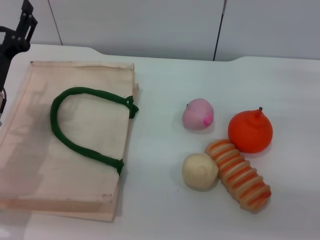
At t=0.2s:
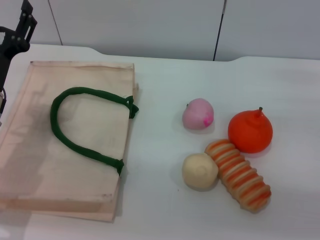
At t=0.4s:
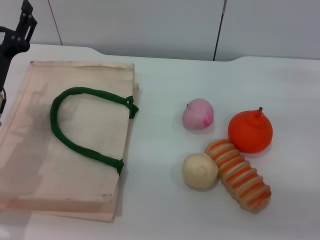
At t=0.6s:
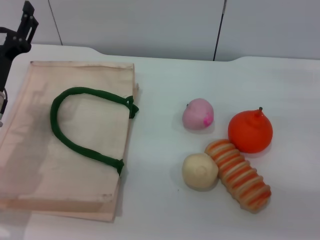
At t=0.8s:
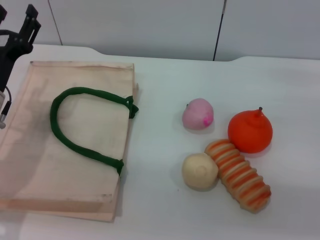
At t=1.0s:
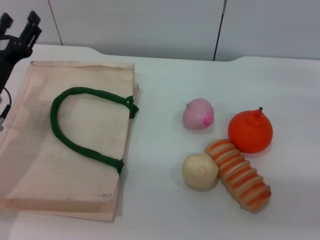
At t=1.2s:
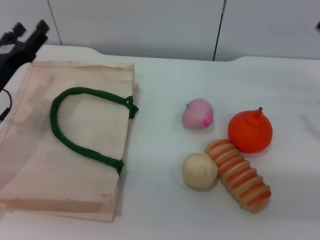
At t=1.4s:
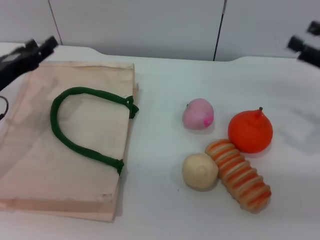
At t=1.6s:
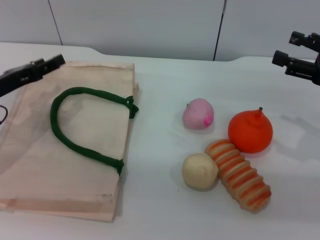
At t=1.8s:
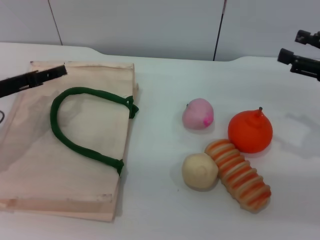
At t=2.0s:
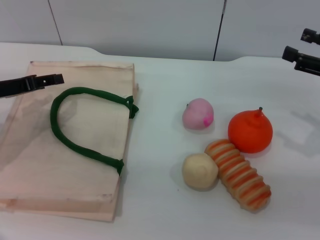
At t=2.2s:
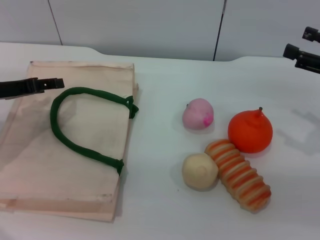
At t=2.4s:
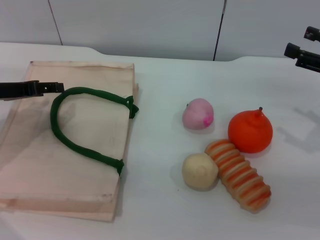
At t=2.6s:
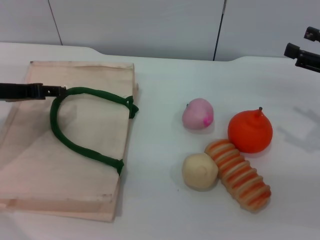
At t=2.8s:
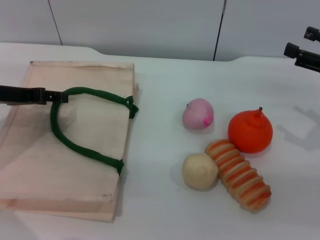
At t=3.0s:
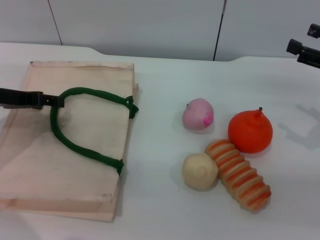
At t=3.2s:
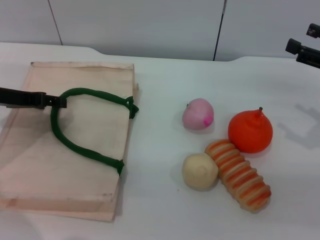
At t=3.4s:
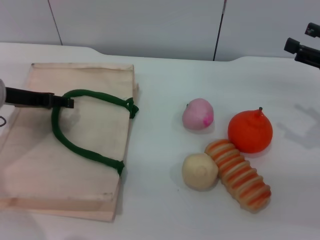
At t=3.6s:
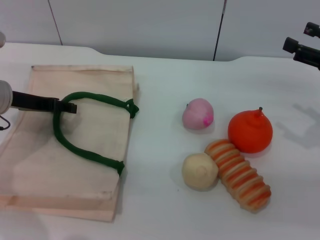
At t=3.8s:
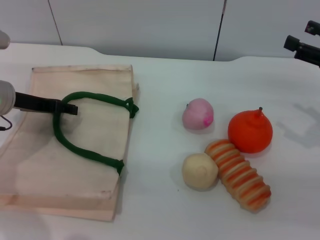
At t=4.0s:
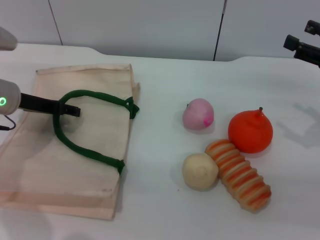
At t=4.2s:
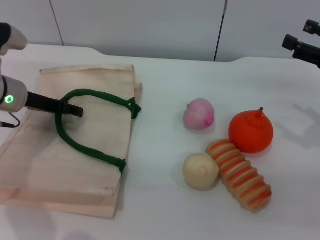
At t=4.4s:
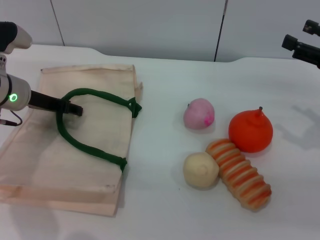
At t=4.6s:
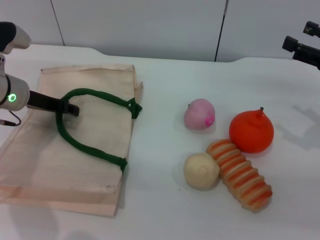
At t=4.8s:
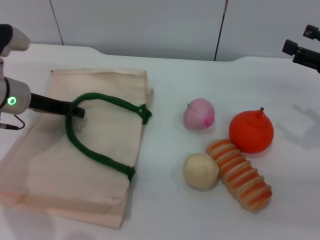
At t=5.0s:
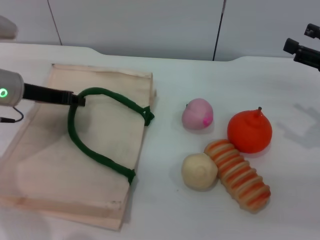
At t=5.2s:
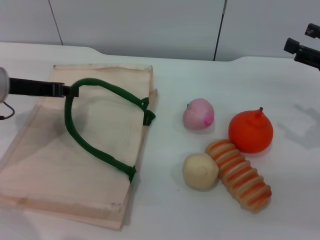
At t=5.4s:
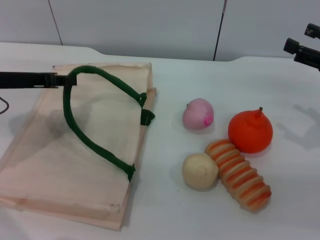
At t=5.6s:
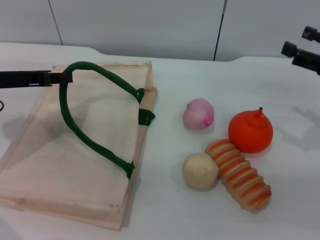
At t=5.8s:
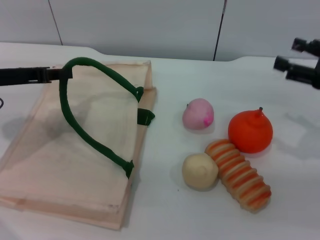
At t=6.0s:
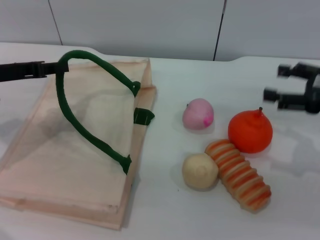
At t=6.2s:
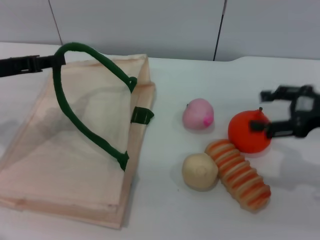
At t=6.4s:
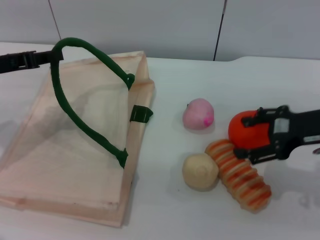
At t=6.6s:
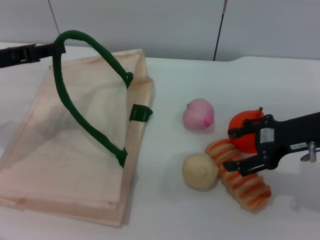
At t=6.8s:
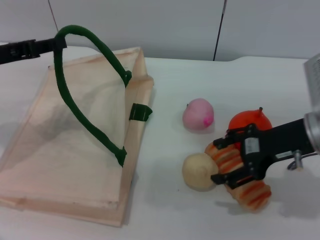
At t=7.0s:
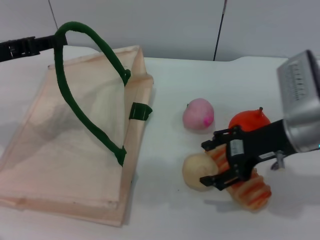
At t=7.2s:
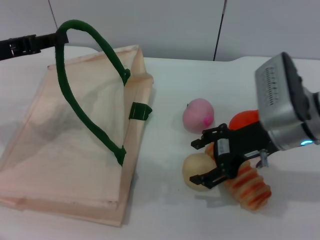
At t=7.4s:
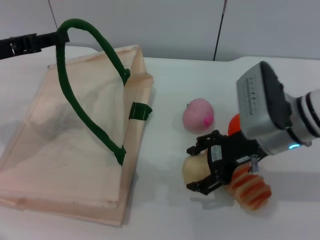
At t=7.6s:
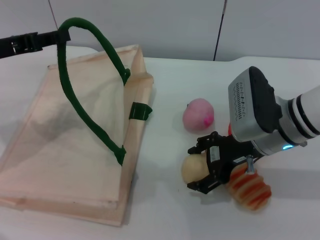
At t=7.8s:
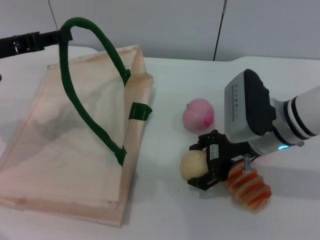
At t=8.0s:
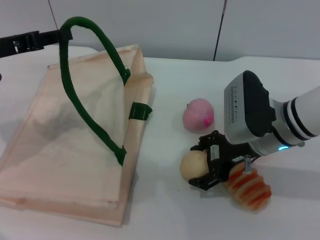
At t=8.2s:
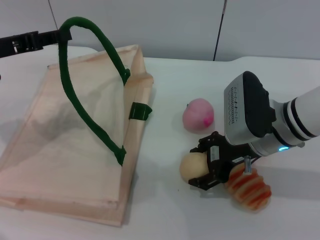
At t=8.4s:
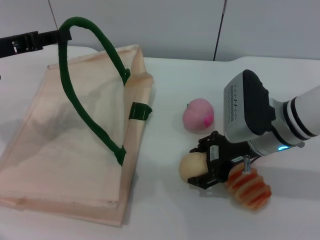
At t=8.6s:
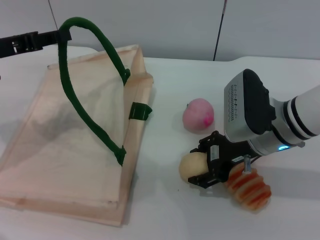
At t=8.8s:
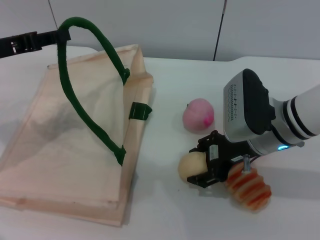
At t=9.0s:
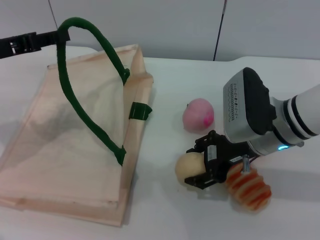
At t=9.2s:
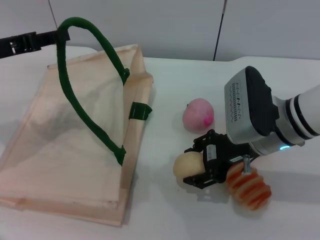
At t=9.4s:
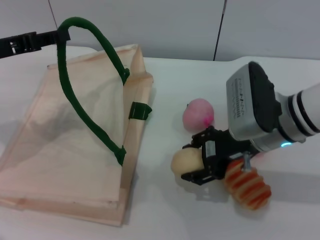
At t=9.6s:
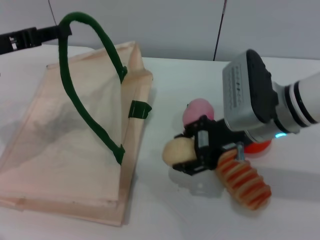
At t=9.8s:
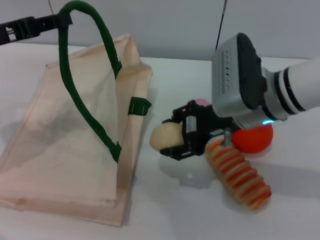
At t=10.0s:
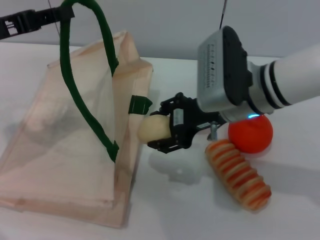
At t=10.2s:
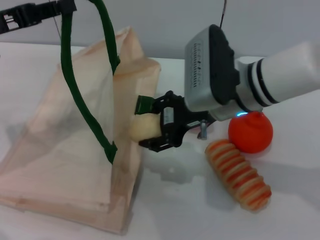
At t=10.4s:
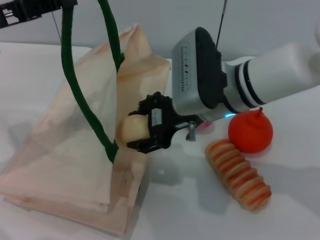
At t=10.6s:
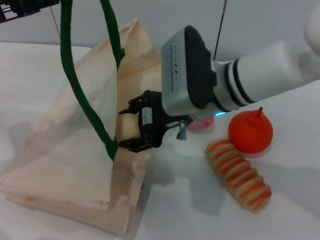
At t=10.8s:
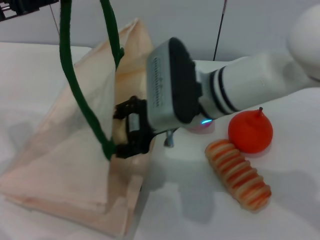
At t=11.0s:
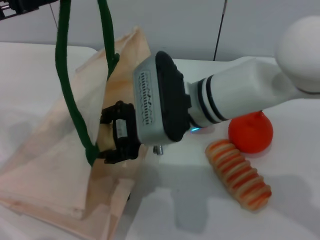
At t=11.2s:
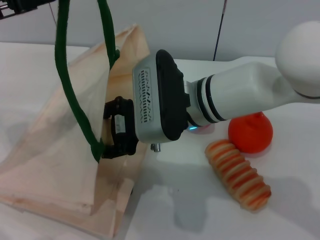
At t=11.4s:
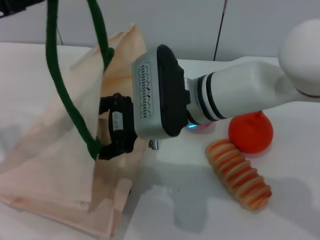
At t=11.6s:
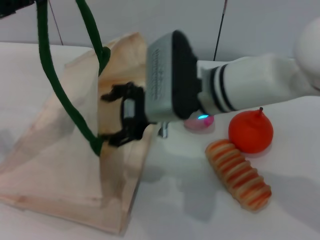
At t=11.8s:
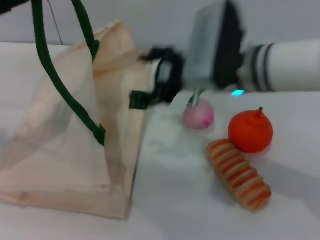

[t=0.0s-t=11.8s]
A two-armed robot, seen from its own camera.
Task of the whole recording: pick up the egg yolk pastry from the table and place it in the white handbag.
Step, t=0.0s to t=5.4s: Lift the woven bag with the left gripper to open it.
Step, t=5.6s to t=9.6s: Pick up the egg yolk pastry with the right gripper.
t=0.0s to t=1.4s: The left gripper changes place by approximately 5 cm. Meanwhile the right gripper ends up approximately 5 cm from where it was.
t=3.0s to t=4.4s: The left gripper changes place by roughly 5 cm.
t=4.4s to t=6.0s: The left gripper goes roughly 5 cm upward and backward, and closes up.
t=6.0s to t=7.4s: The right gripper moves to the left, some 15 cm.
t=7.4s to t=8.8s: The right gripper closes.
t=8.8s to t=10.4s: The right gripper shifts roughly 10 cm to the left.
t=10.4s to t=11.8s: The right gripper opens up.

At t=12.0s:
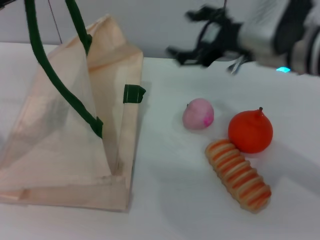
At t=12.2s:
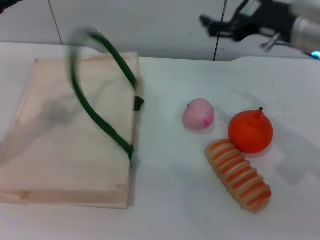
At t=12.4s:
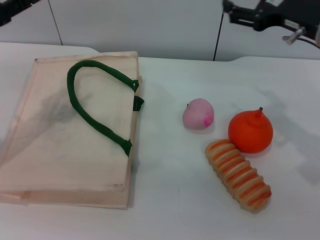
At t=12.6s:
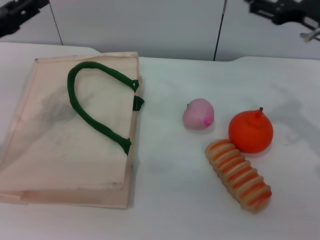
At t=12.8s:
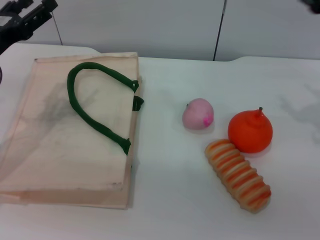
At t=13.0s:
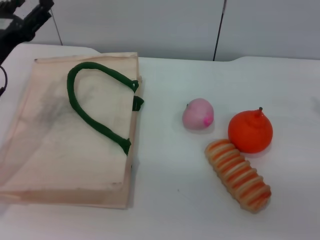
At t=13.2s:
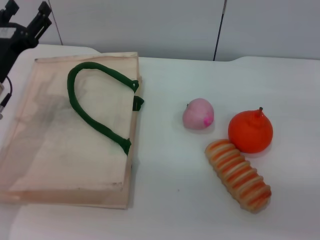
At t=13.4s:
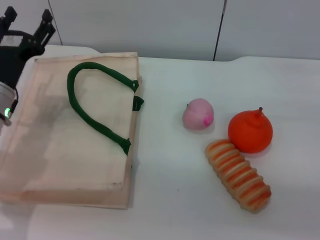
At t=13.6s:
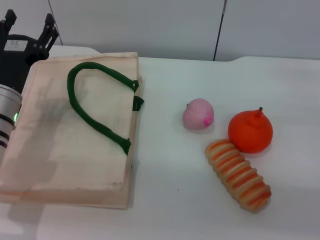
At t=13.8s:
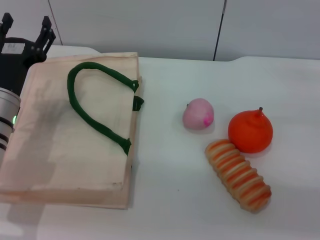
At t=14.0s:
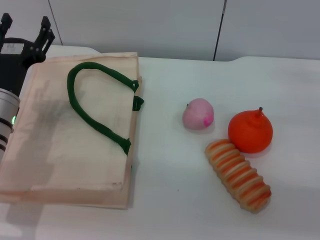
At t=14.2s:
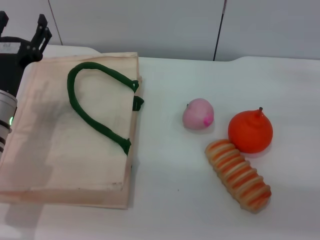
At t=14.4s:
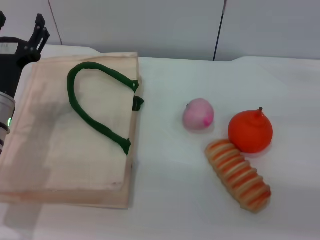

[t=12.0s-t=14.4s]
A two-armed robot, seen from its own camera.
Task of the whole recording: pick up the egg yolk pastry from the table and place it in the white handbag.
Step, t=12.0s to t=12.4s: Lower the woven bag with the left gripper to close it.
t=12.0s to t=13.2s: The right gripper goes roughly 20 cm to the right, while the left gripper shifts approximately 15 cm downward and to the right, and opens.
t=13.2s to t=14.4s: The grippers stay close to where they were, moving slightly.
